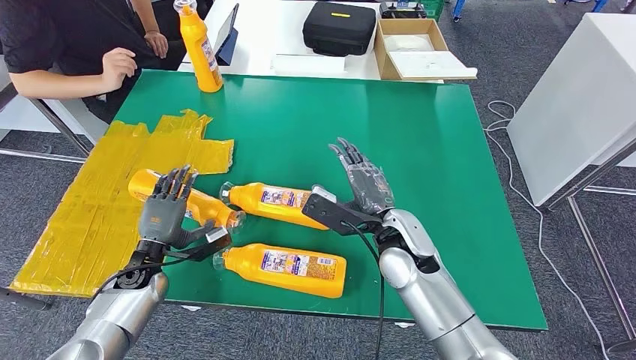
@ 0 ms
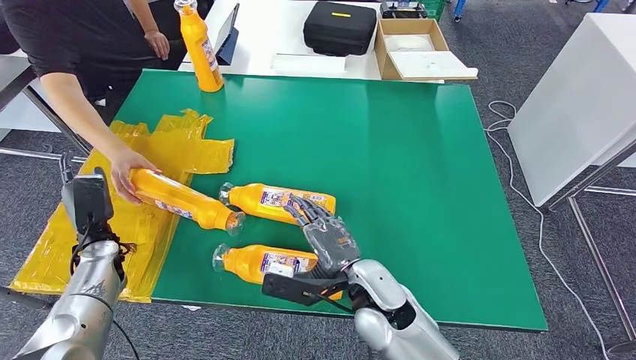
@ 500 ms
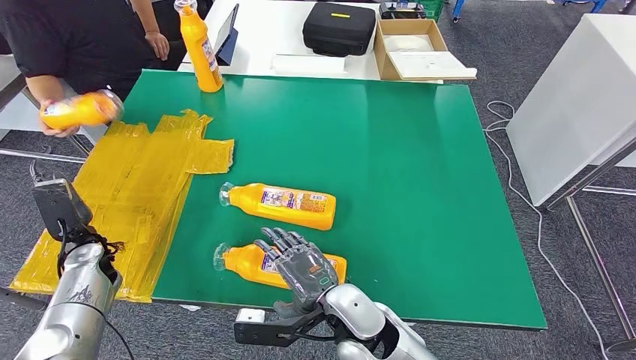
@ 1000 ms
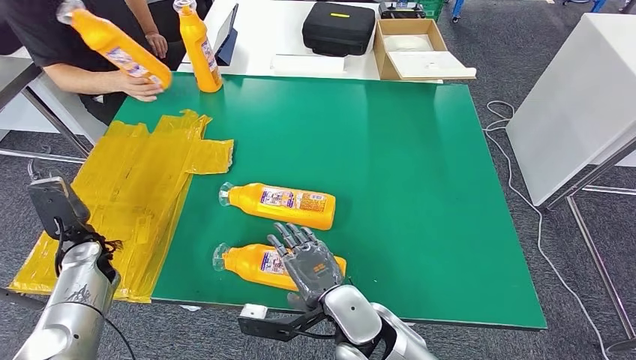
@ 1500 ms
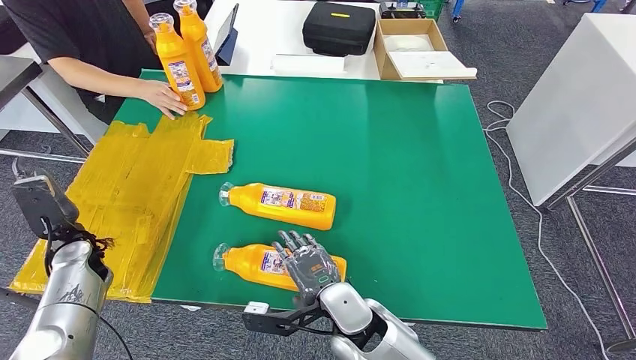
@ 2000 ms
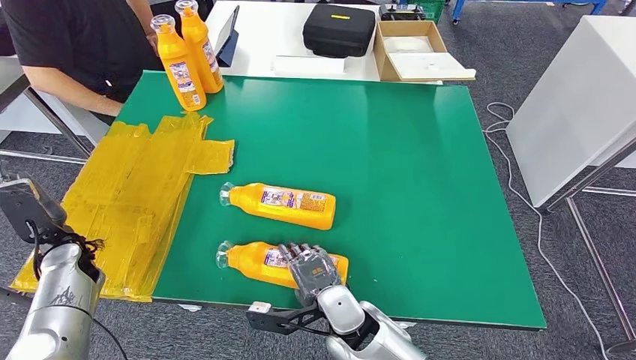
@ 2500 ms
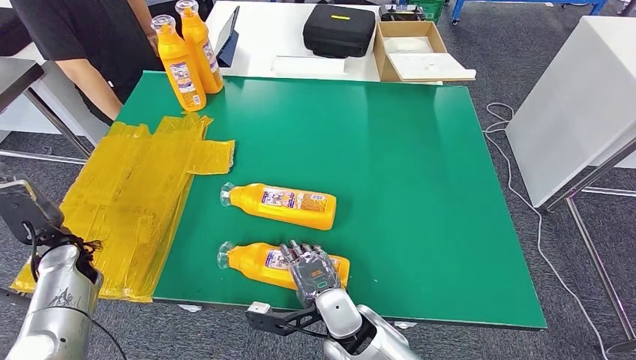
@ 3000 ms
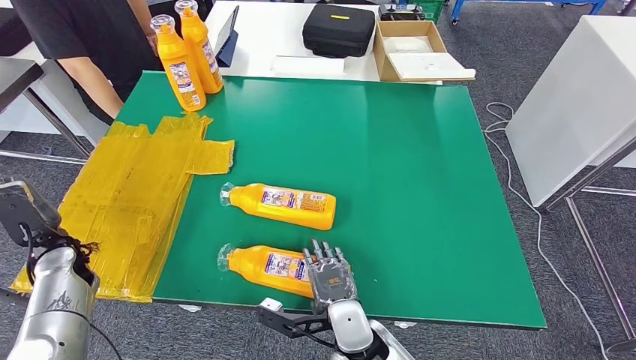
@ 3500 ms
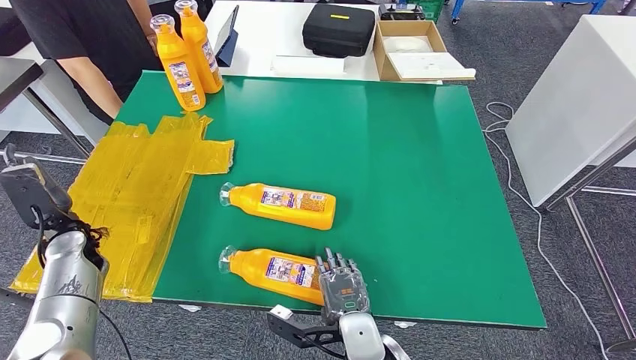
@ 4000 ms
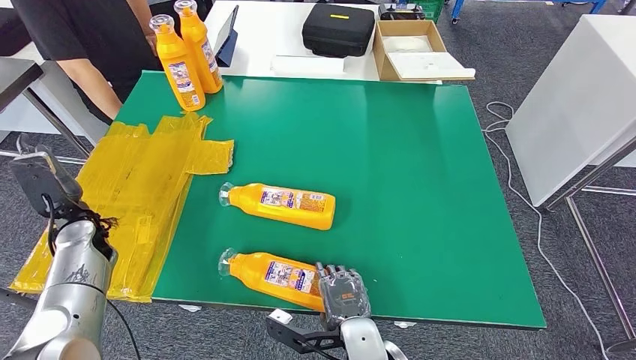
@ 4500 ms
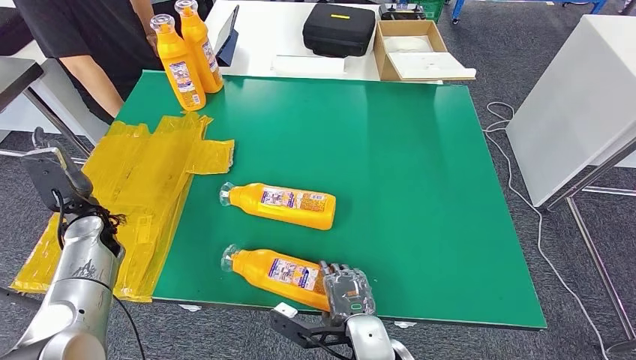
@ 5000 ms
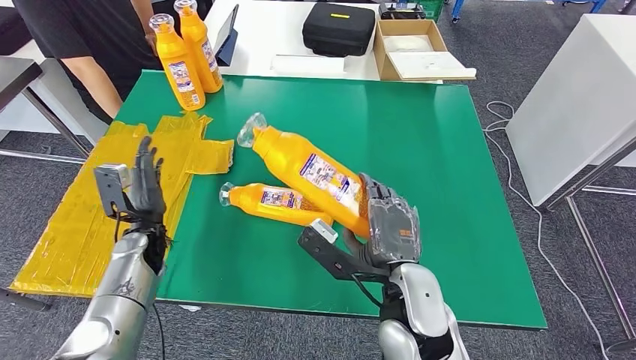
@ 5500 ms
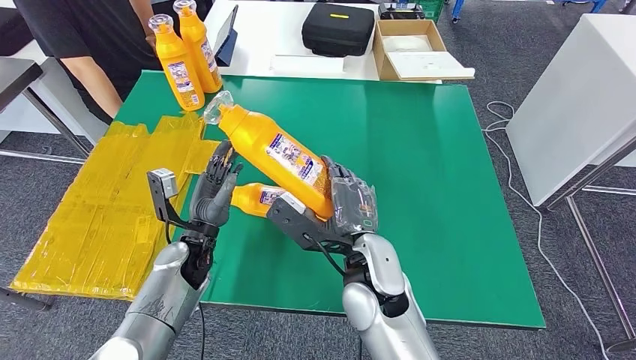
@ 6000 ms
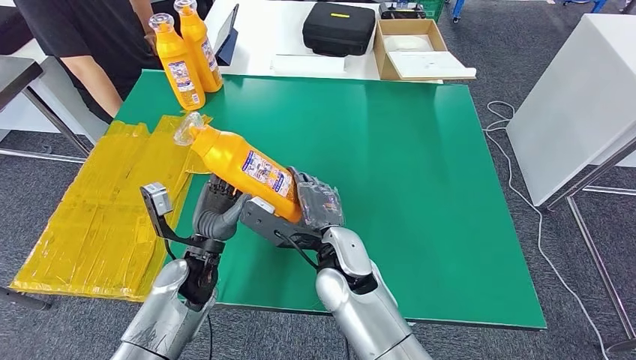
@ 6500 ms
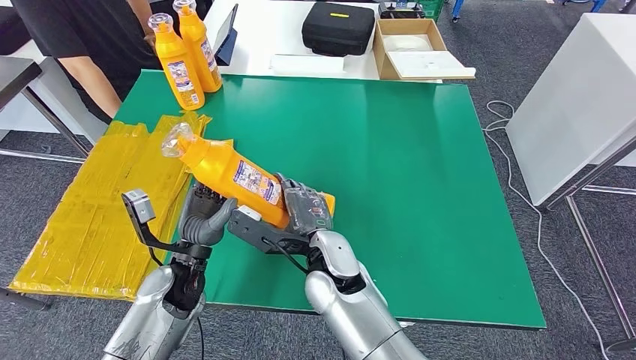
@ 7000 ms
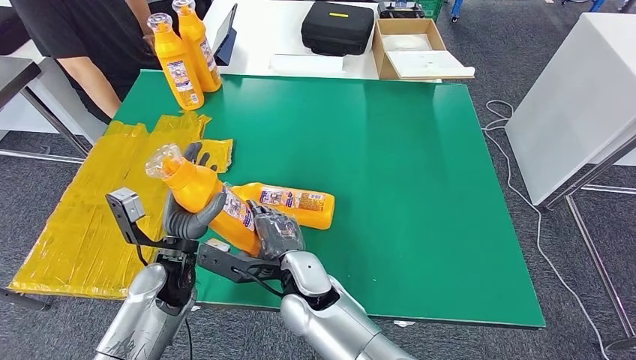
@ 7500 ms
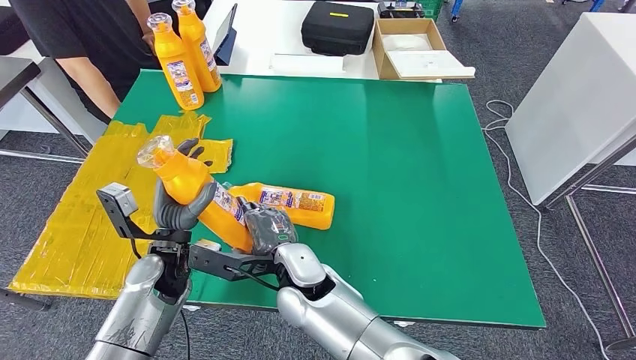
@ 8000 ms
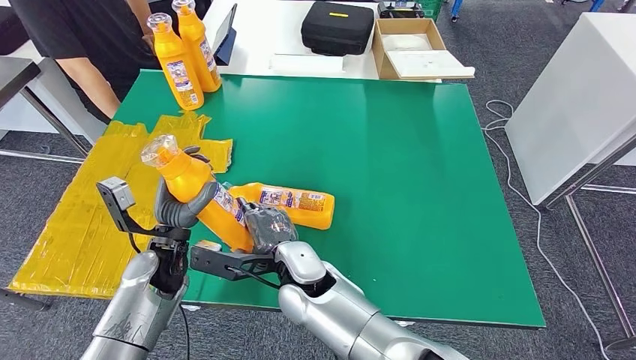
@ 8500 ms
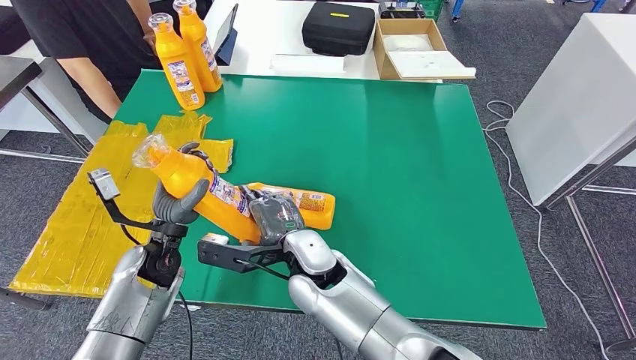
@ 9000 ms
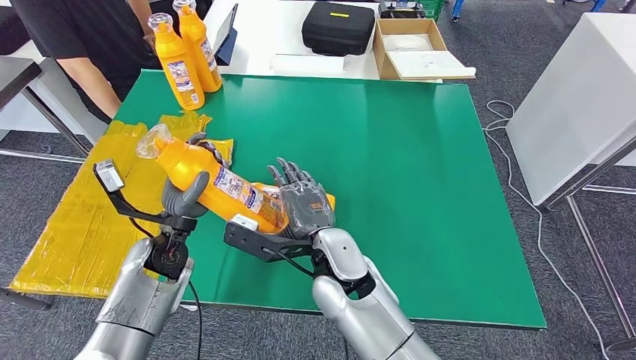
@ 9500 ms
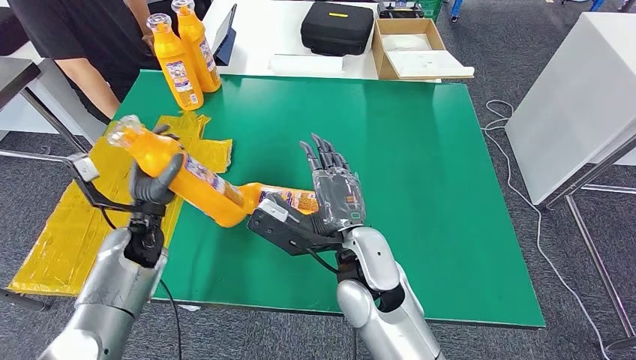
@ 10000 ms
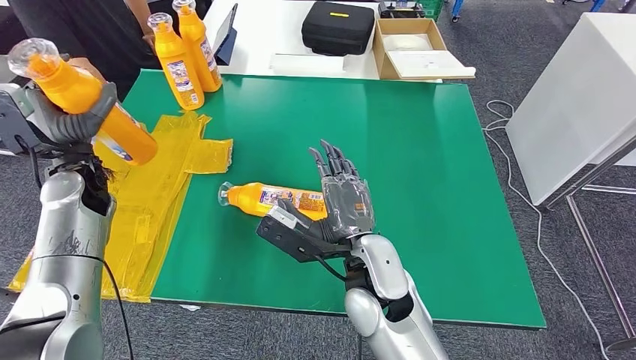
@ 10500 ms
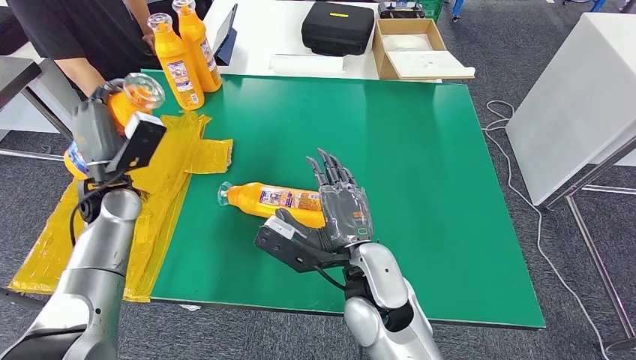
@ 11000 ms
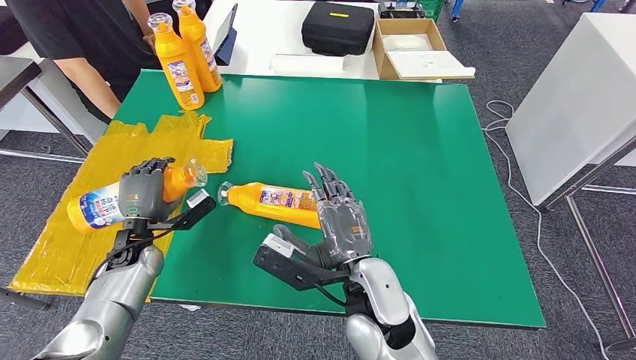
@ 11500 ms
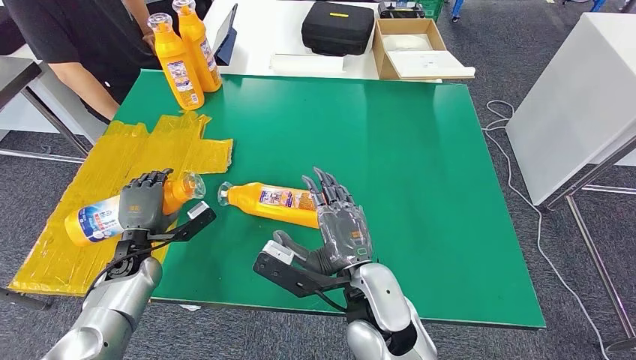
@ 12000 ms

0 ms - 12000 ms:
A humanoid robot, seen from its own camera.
Step, 500 ms - 8000 ms: Pick up the fast-moving consumer goods bottle from the table.
2000 ms - 4000 ms: The right hand goes some 5 cm backward.
8000 ms - 10000 ms: The right hand is displaced to the right and upward by about 10 cm. The left hand heads to the left, covering approximately 5 cm.
10000 ms - 12000 ms: The right hand ends up about 5 cm from where it was, while the left hand is displaced downward by about 5 cm.

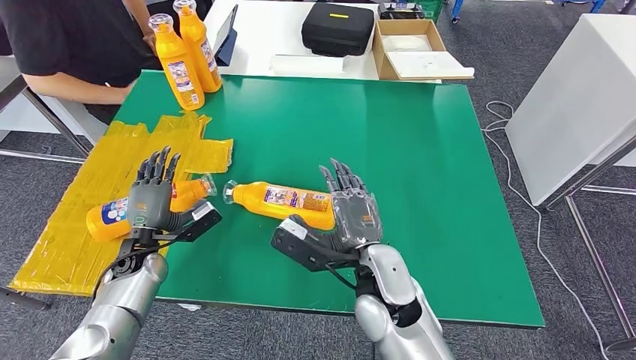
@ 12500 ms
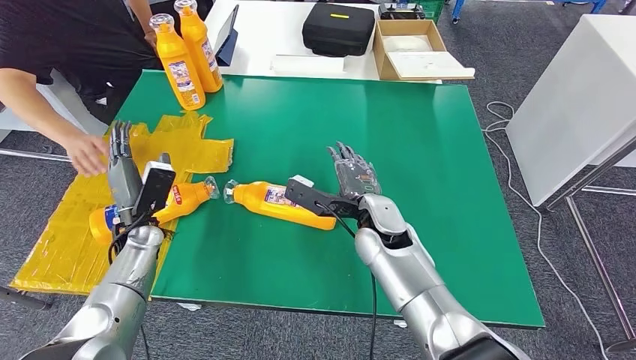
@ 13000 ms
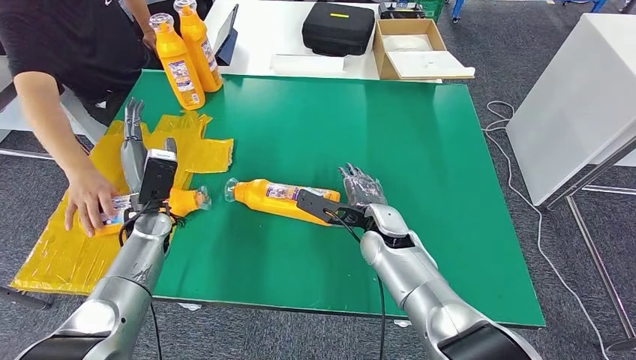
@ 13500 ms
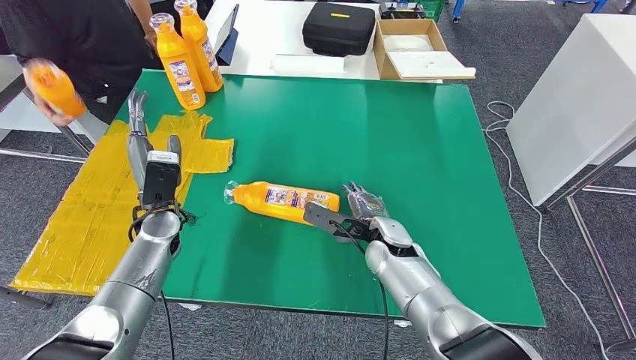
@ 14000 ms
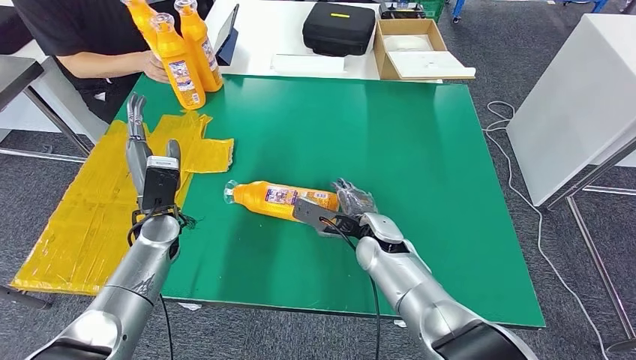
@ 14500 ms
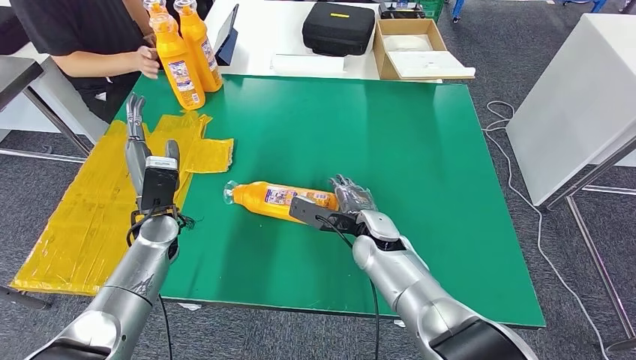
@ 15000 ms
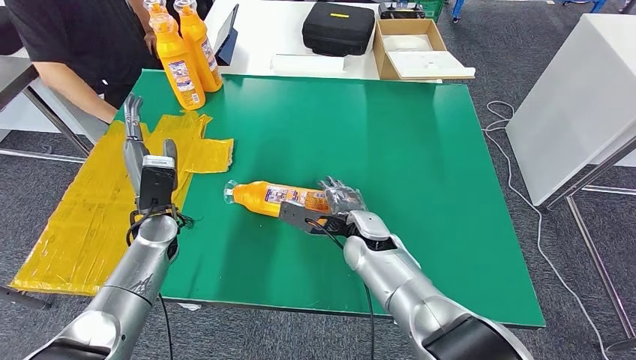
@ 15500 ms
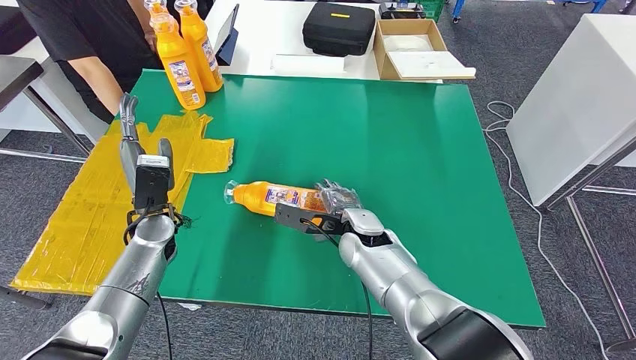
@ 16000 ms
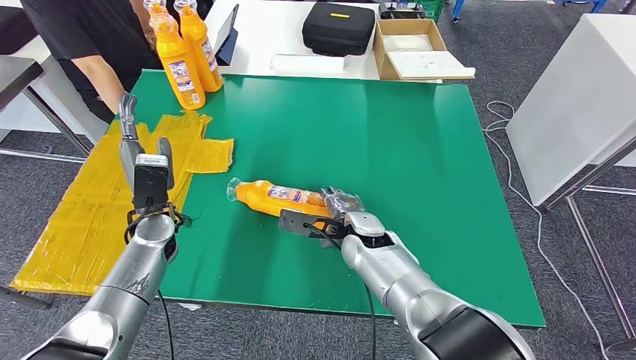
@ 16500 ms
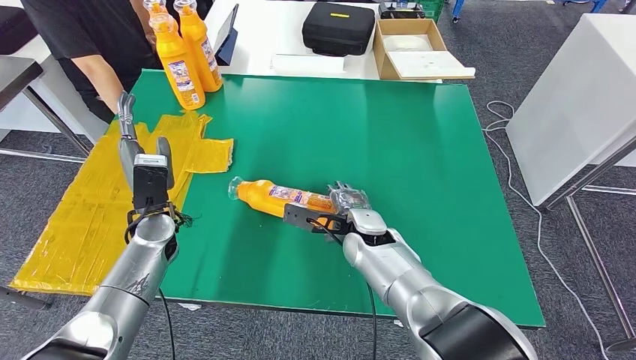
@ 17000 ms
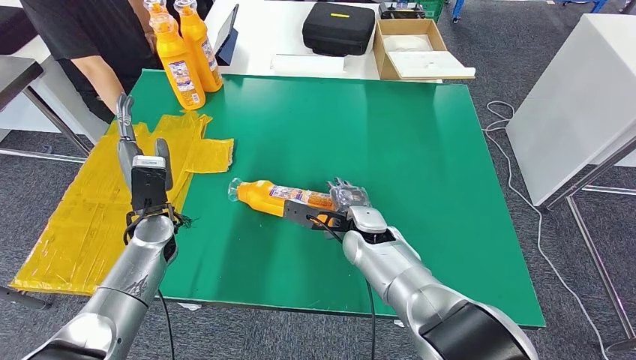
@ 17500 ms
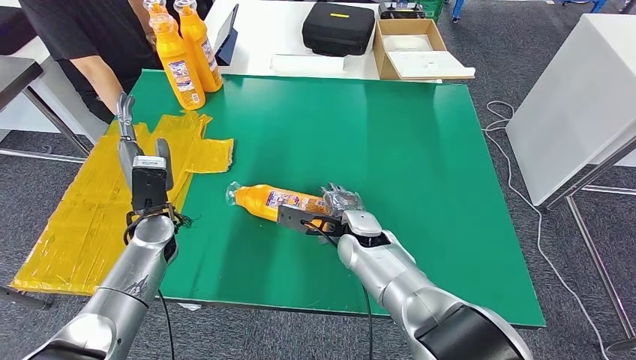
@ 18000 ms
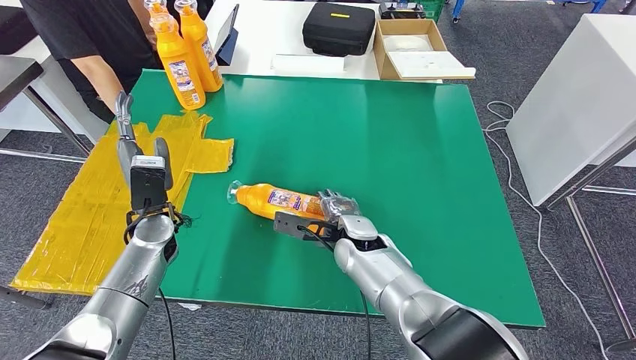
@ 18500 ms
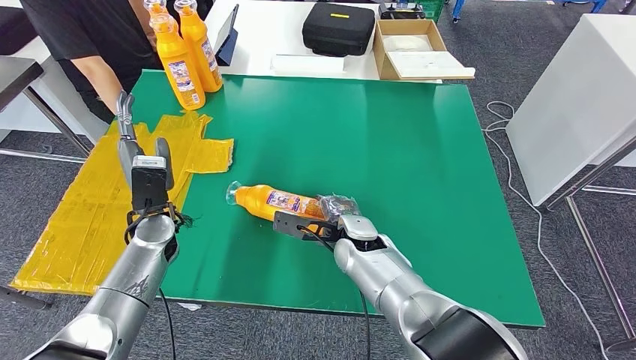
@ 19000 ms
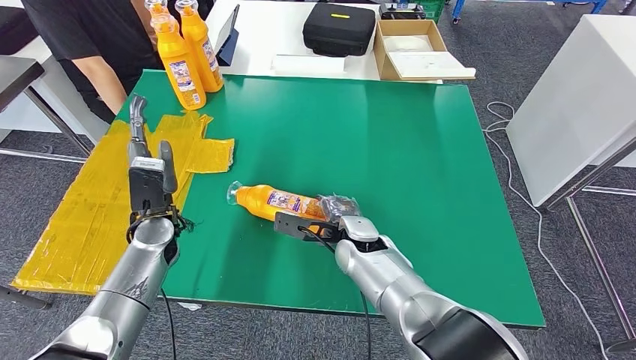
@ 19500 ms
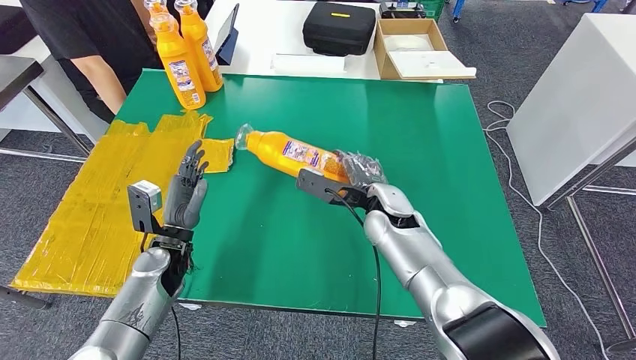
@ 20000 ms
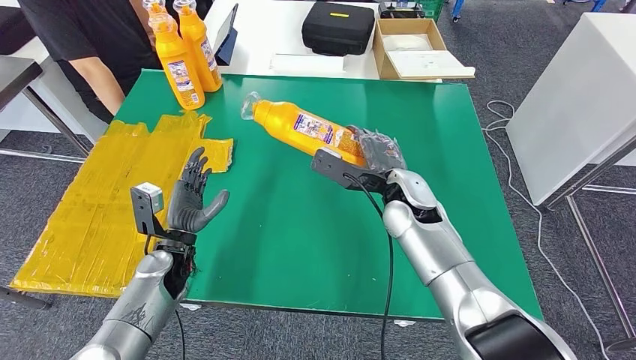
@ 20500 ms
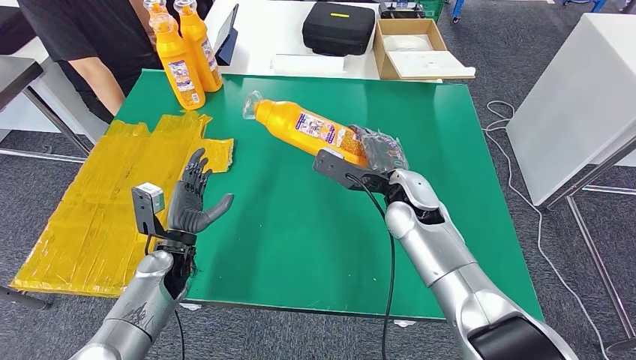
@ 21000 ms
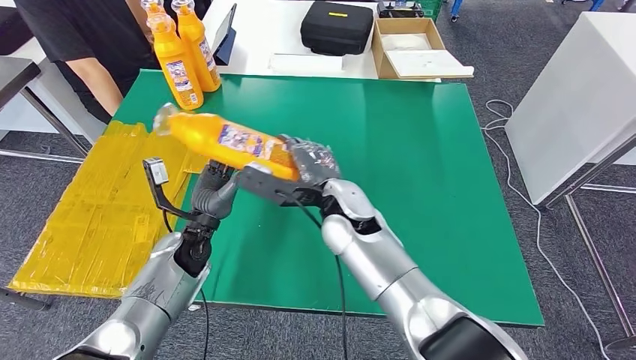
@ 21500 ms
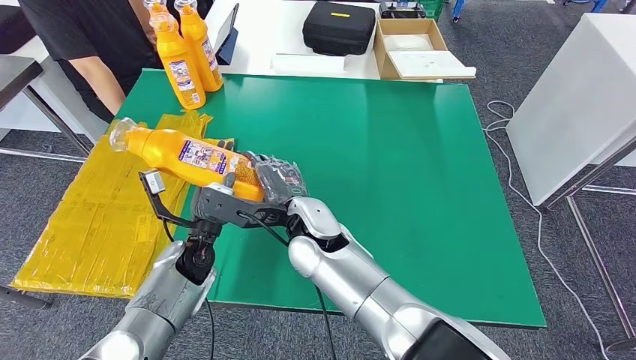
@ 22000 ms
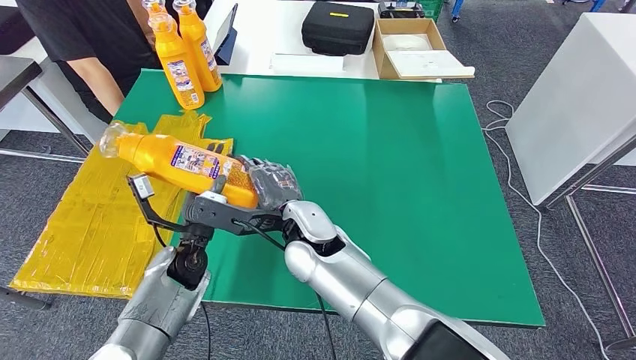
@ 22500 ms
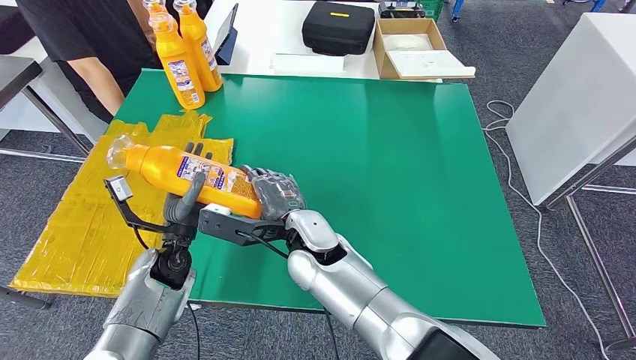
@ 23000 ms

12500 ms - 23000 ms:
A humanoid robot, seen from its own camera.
Step, 12500 ms - 21000 ms: Pick up the fast-moving consumer goods bottle from the table.
14500 ms - 19000 ms: The hands stay close to where they were, moving slightly.
